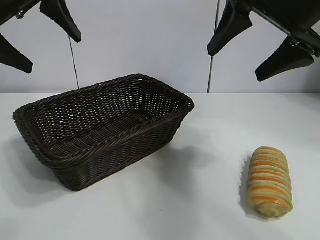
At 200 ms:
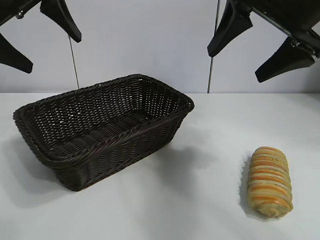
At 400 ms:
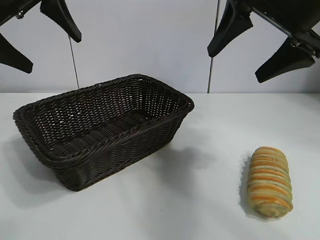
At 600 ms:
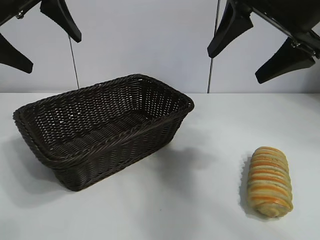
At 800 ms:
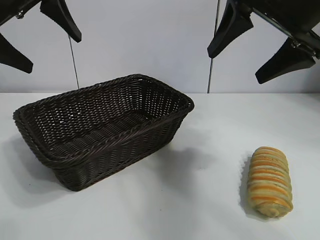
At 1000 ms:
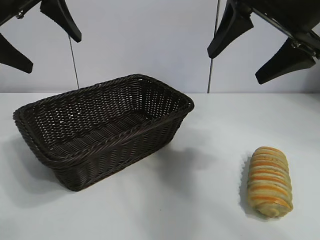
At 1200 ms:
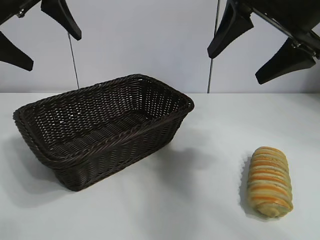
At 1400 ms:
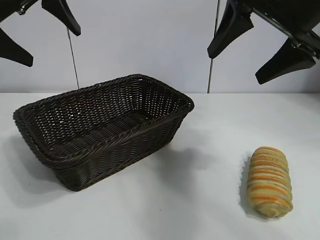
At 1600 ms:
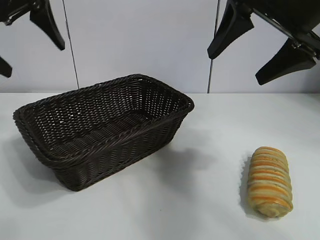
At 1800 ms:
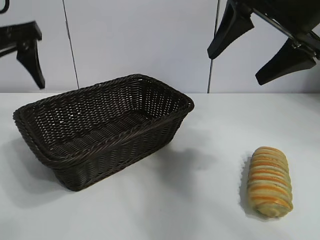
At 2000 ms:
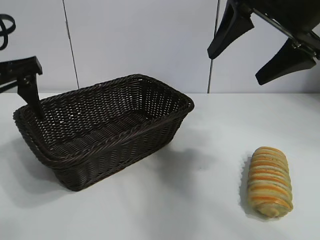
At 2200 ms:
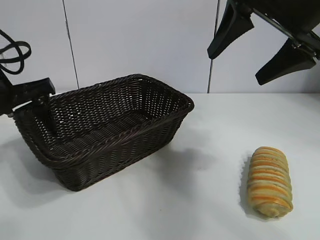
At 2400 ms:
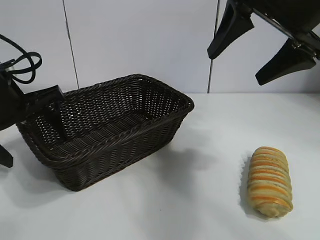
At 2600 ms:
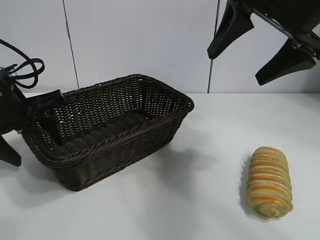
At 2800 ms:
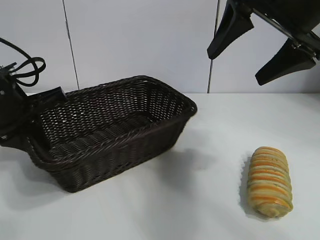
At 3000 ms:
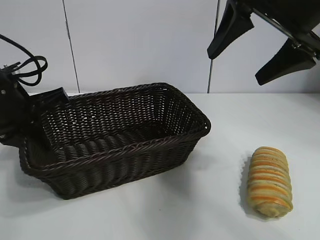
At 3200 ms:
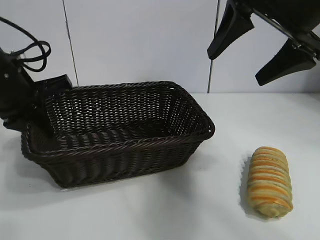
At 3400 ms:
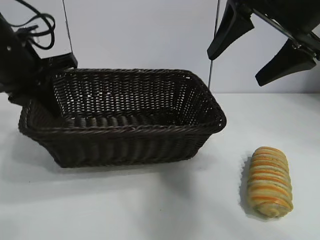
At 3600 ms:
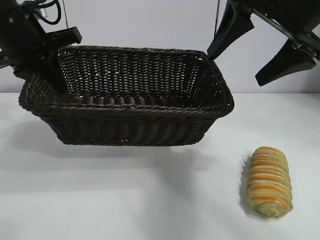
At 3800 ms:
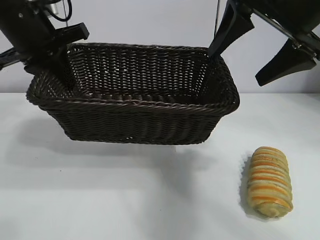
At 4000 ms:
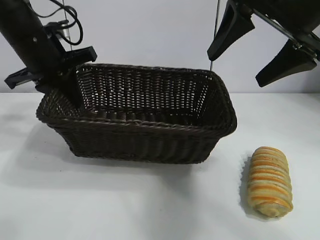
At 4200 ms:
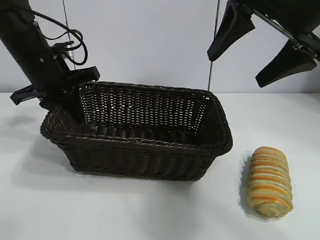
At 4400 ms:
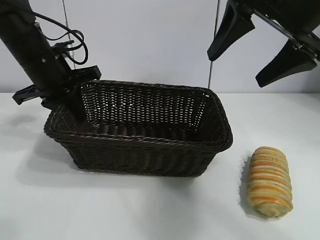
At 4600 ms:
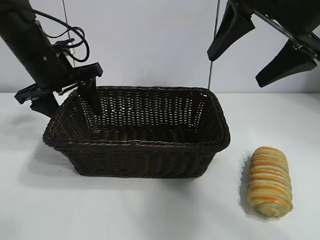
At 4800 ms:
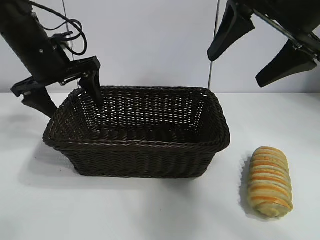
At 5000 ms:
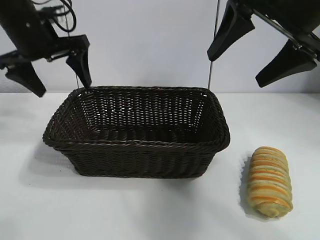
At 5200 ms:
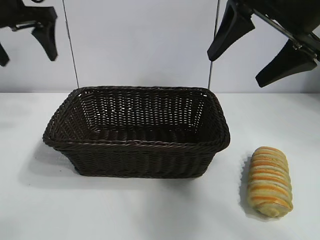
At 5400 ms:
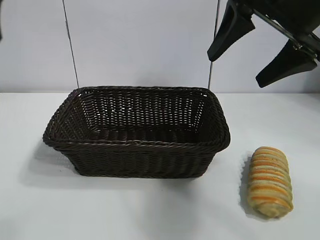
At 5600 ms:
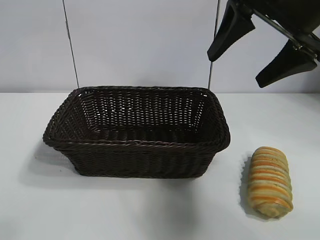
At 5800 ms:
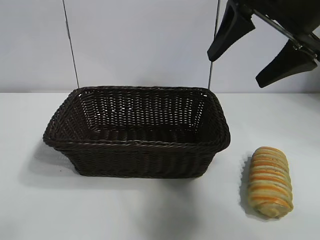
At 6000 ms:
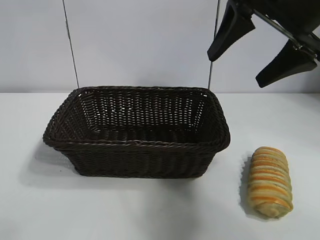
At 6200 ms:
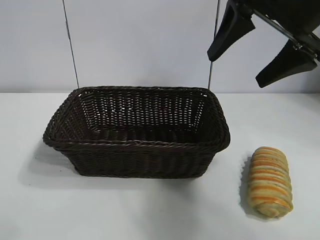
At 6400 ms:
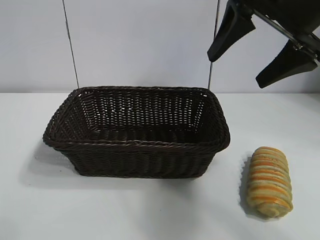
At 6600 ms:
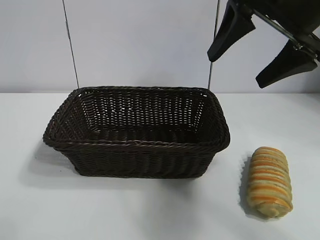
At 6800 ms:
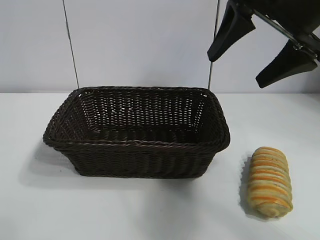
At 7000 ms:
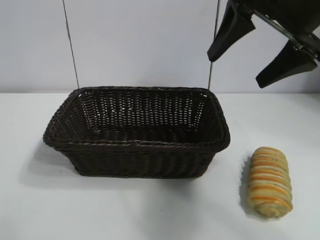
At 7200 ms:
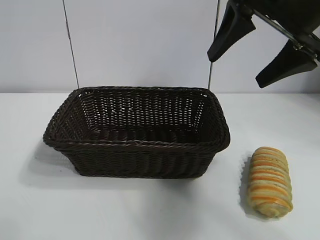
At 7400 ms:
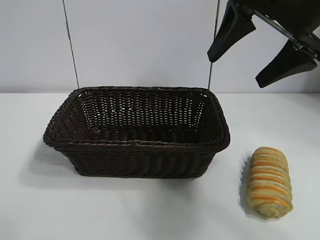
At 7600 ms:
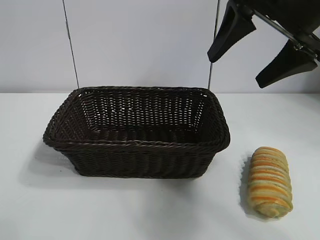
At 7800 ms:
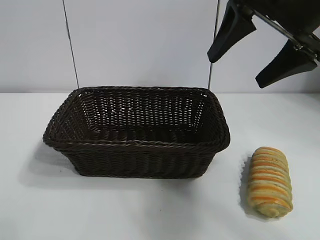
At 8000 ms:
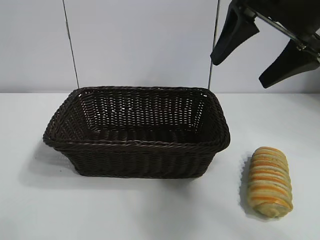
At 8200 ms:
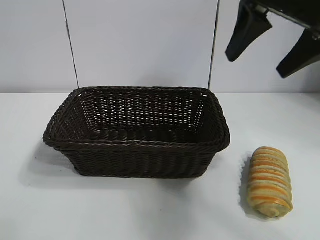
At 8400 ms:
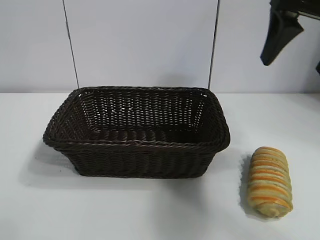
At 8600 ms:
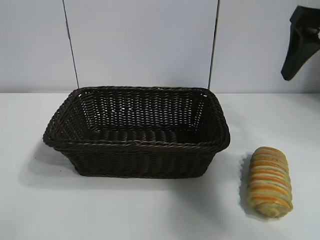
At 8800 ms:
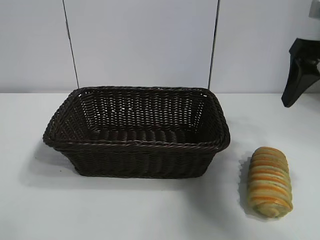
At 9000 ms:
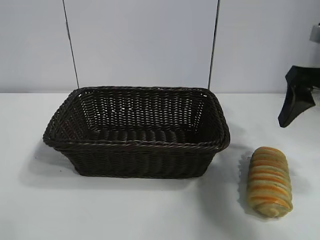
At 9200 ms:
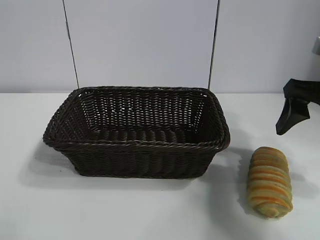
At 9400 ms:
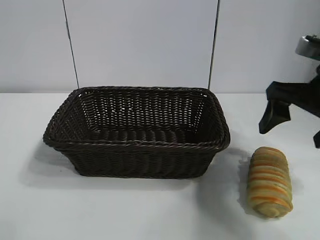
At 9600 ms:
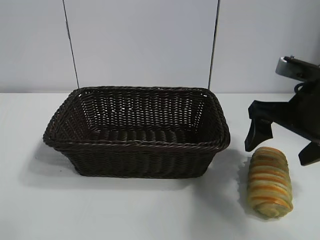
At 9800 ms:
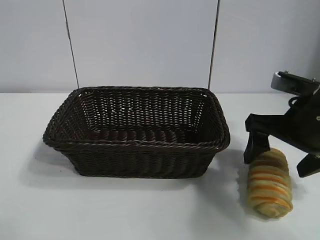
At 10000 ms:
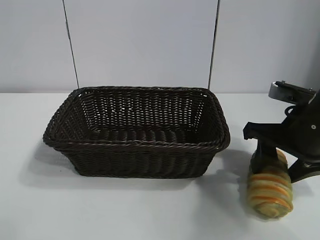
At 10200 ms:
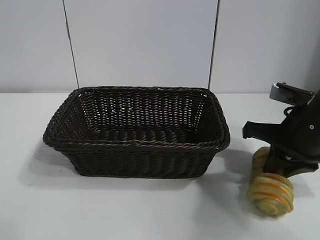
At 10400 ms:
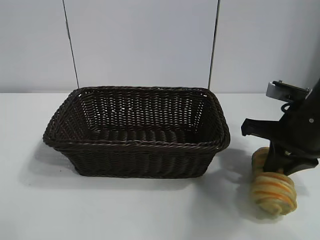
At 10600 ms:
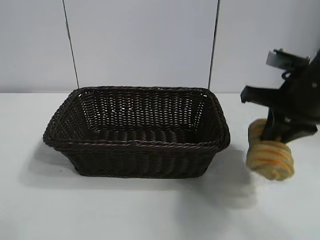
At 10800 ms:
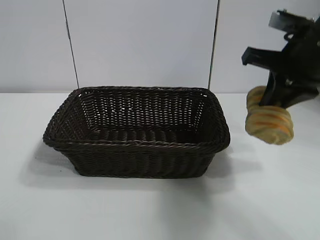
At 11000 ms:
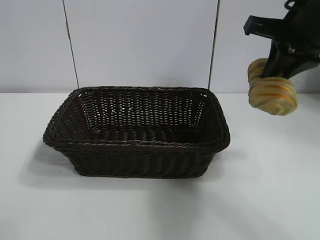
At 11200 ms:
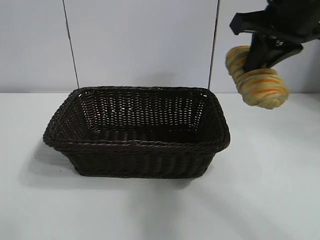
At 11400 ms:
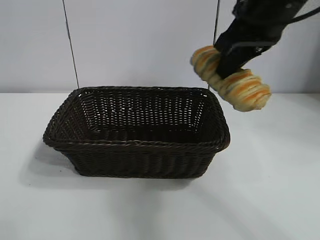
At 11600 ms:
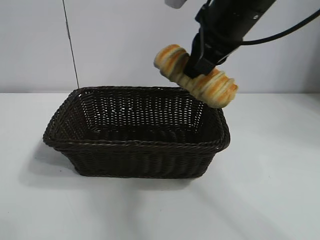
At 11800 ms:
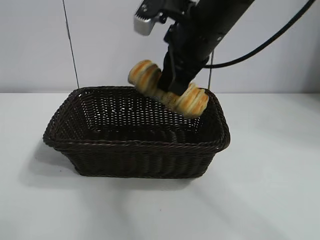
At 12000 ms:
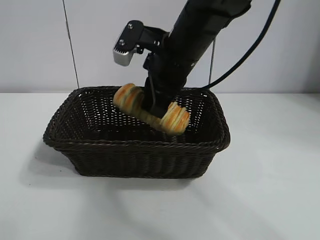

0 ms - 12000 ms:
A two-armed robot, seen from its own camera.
Task of the whole recording: pick up the long bread and put it into the basket.
Step, 1800 ms - 2800 ms: Grasp the basket with the left gripper.
Step, 3000 ms - 4600 ms: Place the basket in the center of the table with the left gripper.
Step, 4800 ms - 10200 ms: Grasp the long bread with right gripper.
